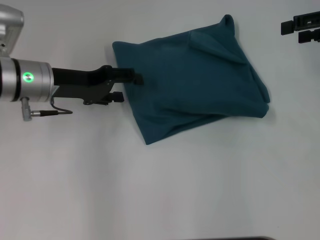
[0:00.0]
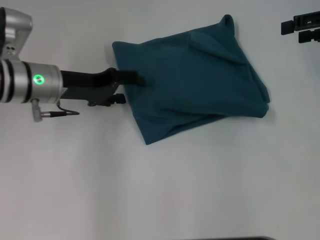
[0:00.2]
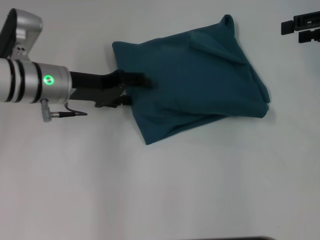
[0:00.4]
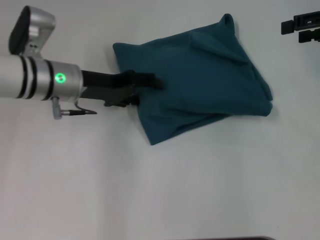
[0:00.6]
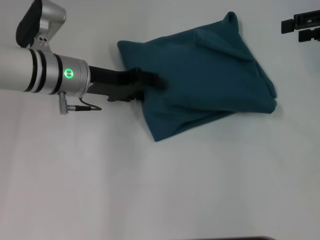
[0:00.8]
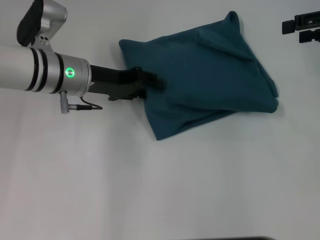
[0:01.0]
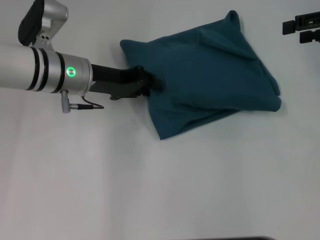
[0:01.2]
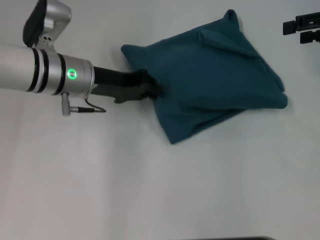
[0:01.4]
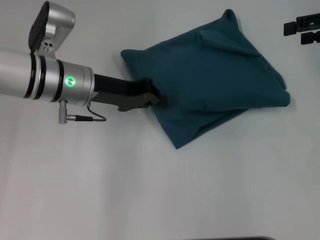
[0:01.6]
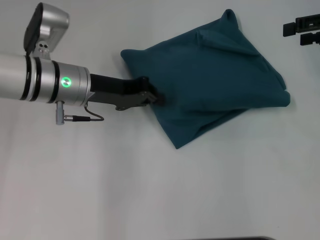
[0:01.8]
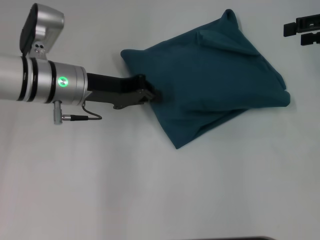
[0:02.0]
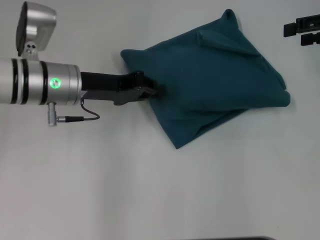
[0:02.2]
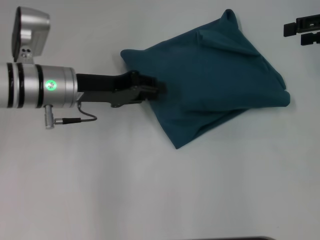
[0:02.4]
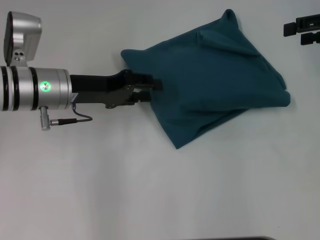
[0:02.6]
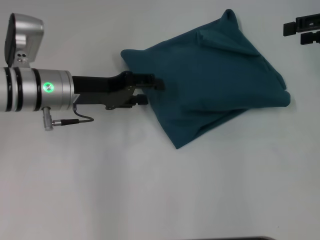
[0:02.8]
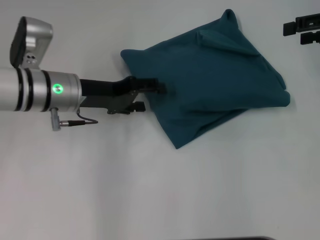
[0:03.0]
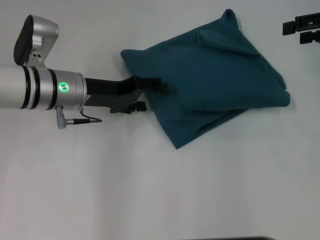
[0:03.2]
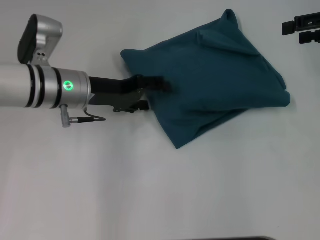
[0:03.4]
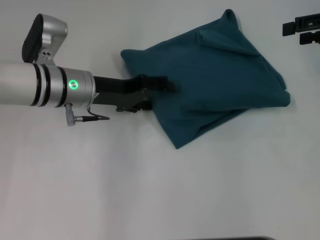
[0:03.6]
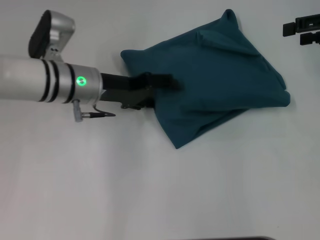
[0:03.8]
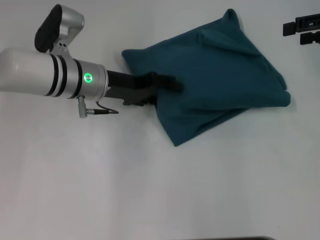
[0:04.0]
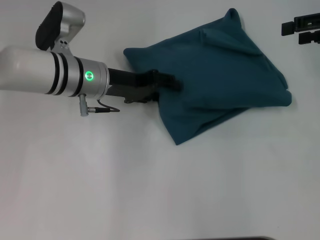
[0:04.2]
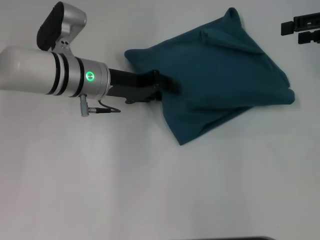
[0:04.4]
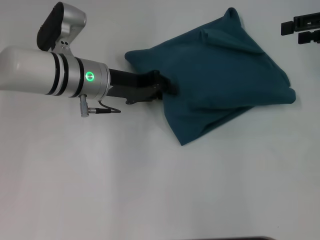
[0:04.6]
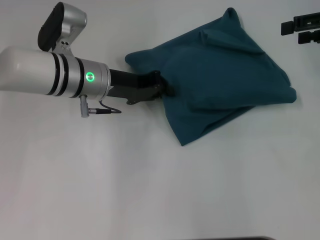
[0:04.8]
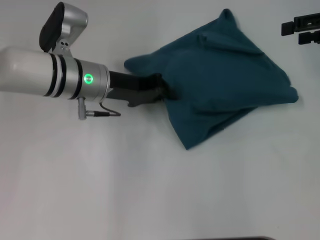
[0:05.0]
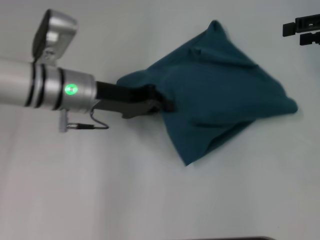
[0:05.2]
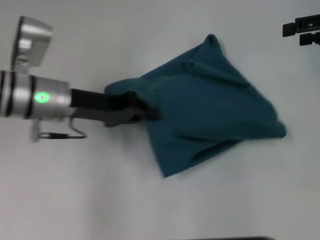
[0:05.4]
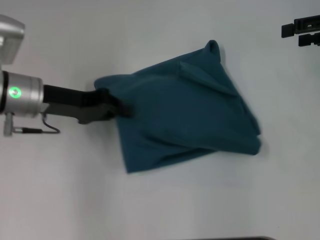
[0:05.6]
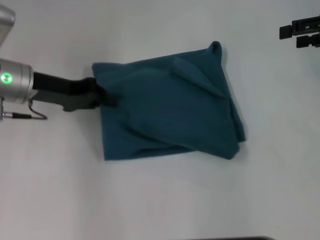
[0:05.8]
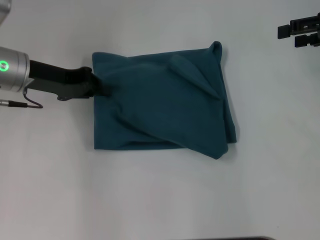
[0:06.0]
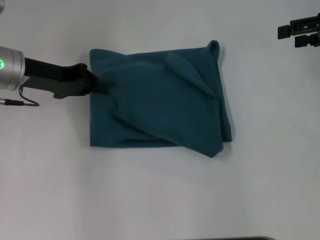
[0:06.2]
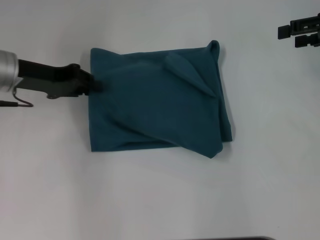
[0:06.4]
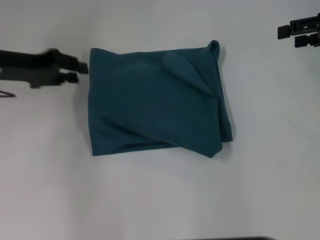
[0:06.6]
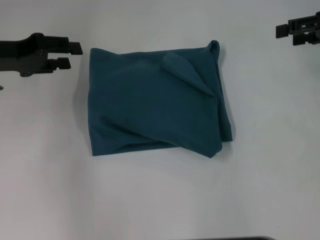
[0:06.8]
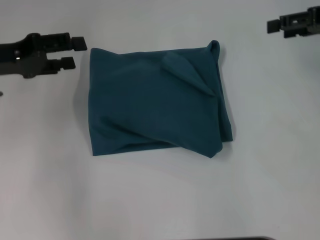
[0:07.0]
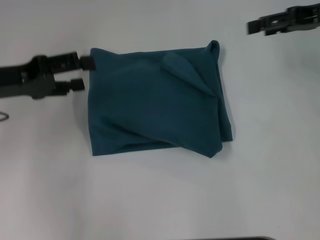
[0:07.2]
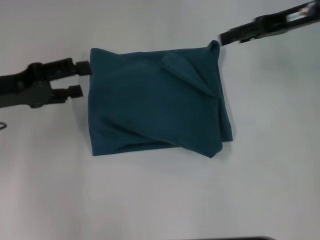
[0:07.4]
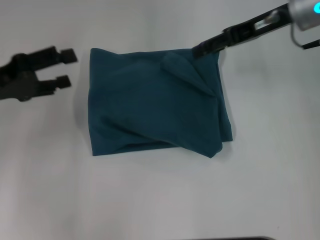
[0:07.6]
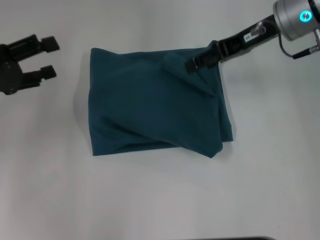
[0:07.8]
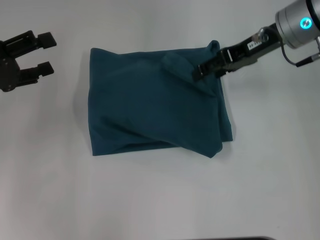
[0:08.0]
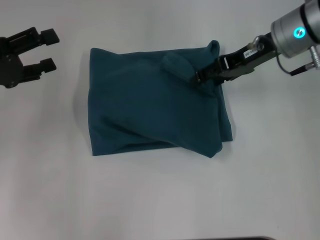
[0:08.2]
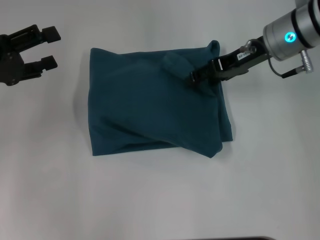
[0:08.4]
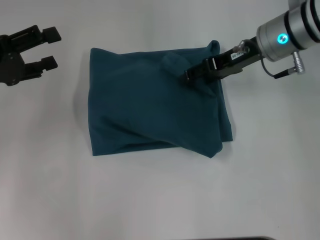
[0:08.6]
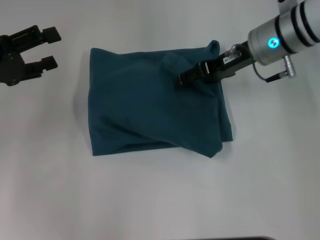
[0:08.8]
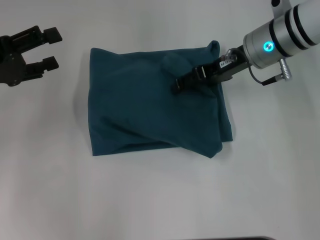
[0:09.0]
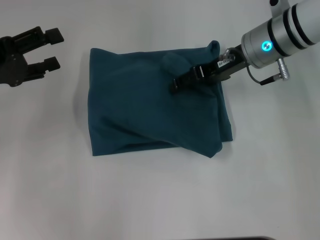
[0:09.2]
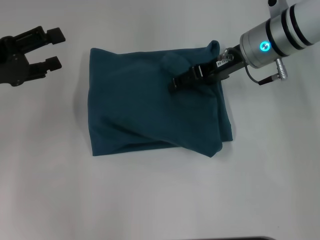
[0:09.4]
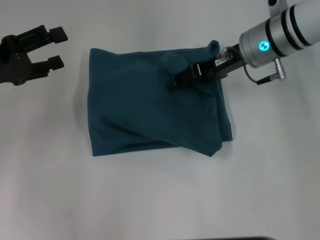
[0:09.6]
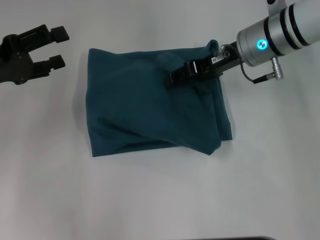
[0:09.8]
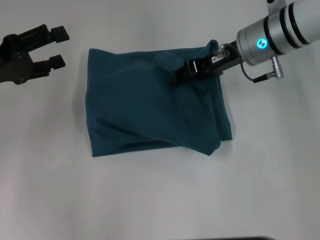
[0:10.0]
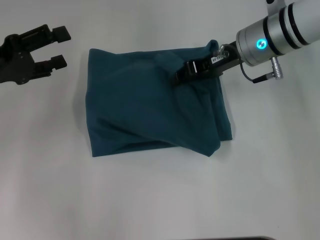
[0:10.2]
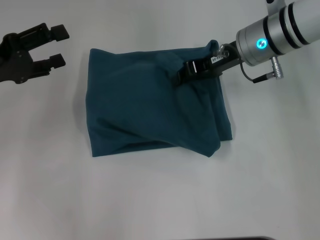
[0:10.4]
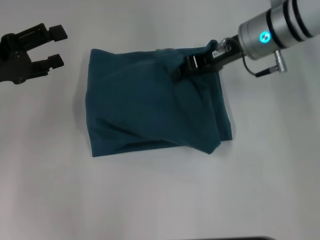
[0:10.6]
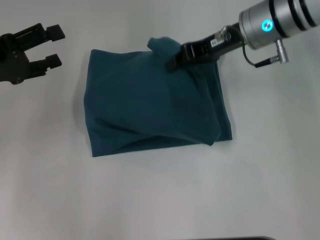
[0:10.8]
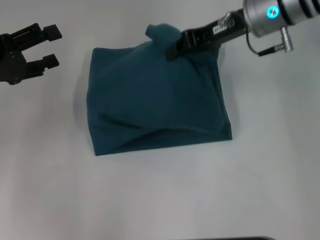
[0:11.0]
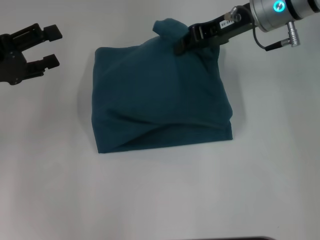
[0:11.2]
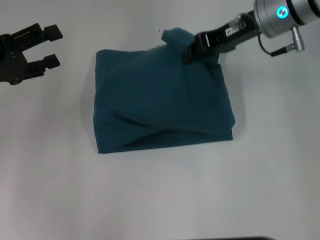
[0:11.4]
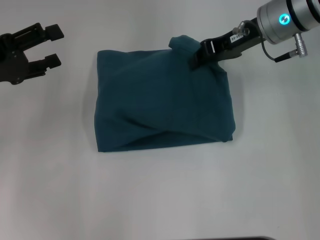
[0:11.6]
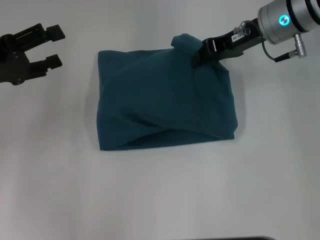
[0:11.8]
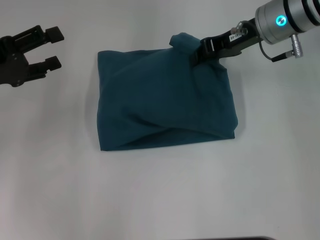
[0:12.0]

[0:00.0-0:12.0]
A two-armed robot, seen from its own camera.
0:00.0 to 0:01.6: The left gripper heads to the right, covering roughly 5 cm, and closes its fingers.
0:01.6 to 0:03.0: The left gripper opens its fingers.
0:03.0 to 0:04.4: The grippers stay close to where they were, moving slightly.
0:04.4 to 0:06.0: The left gripper heads to the left, covering about 10 cm, and closes.
0:06.0 to 0:07.6: The left gripper shifts roughly 10 cm backward and to the left, and opens, while the right gripper heads to the left, covering some 15 cm.
0:07.6 to 0:09.0: The right gripper is displaced downward by some 5 cm.
0:09.0 to 0:10.4: The right gripper closes up.
0:10.4 to 0:12.0: The grippers make only small movements.

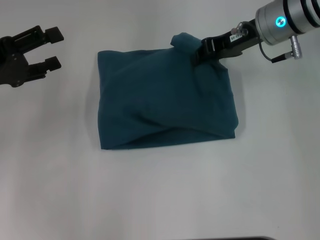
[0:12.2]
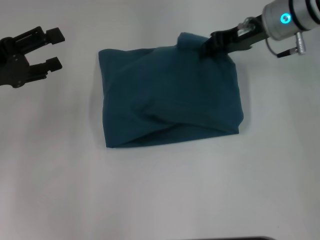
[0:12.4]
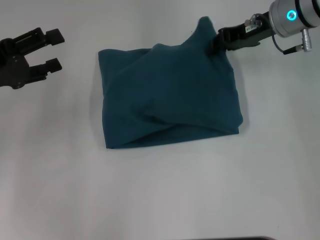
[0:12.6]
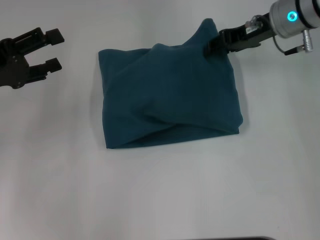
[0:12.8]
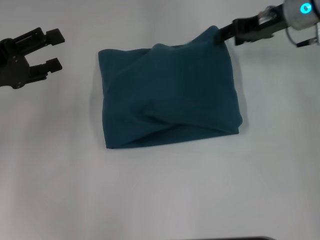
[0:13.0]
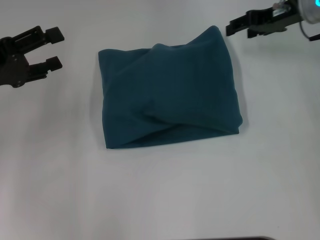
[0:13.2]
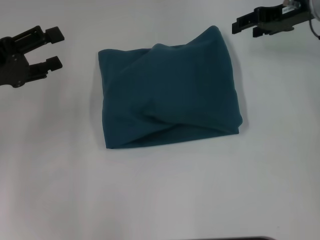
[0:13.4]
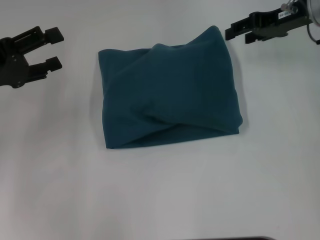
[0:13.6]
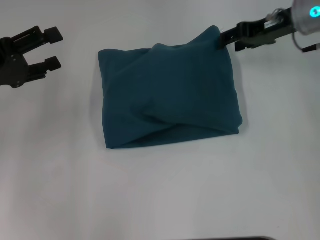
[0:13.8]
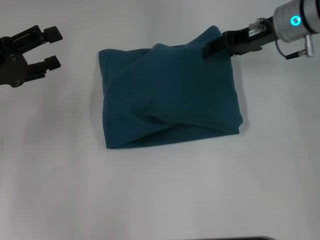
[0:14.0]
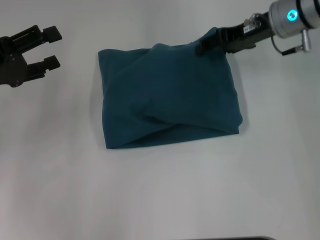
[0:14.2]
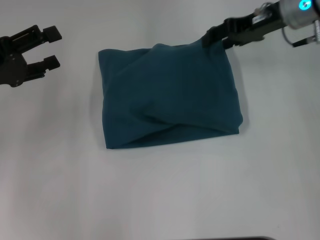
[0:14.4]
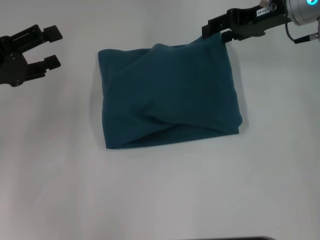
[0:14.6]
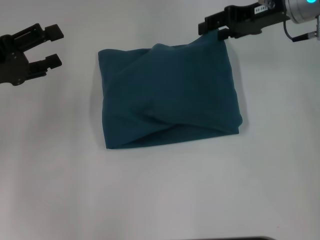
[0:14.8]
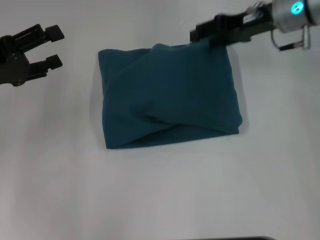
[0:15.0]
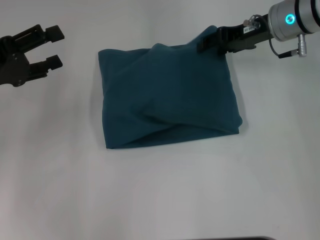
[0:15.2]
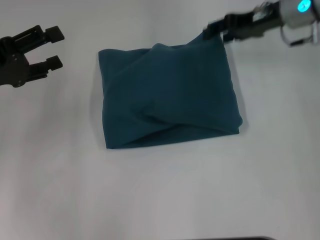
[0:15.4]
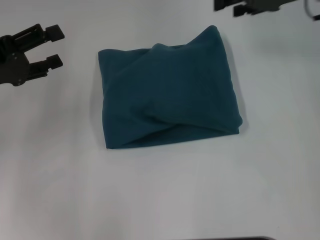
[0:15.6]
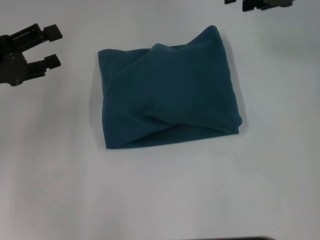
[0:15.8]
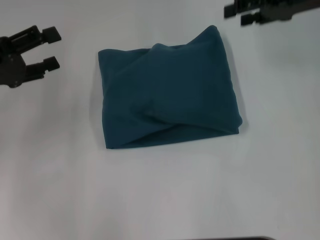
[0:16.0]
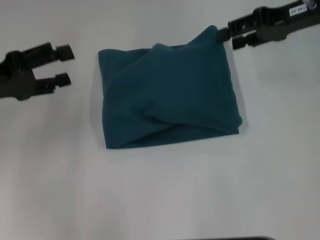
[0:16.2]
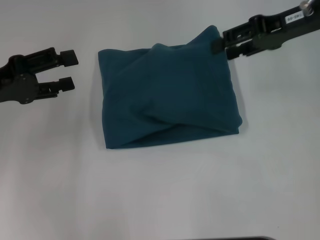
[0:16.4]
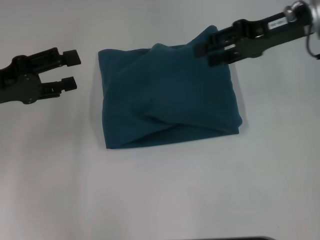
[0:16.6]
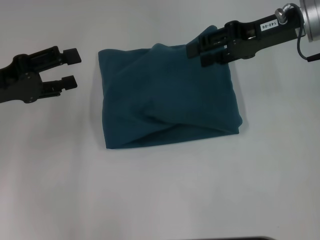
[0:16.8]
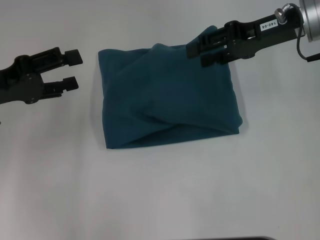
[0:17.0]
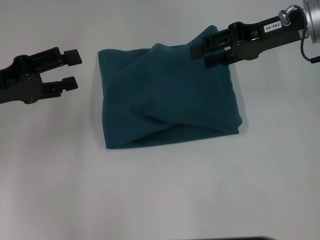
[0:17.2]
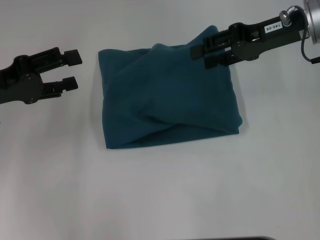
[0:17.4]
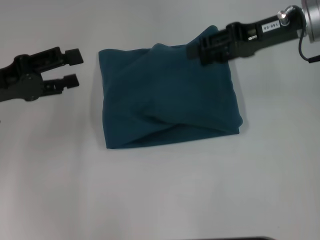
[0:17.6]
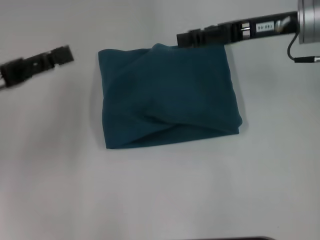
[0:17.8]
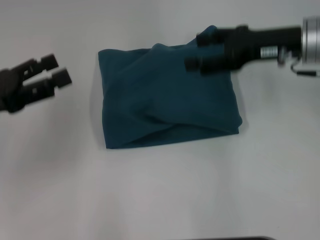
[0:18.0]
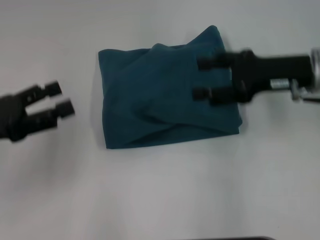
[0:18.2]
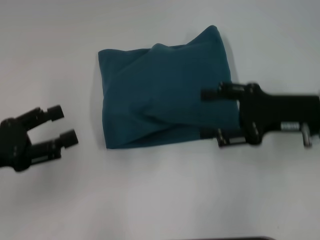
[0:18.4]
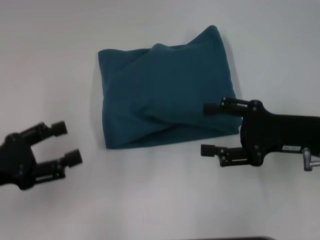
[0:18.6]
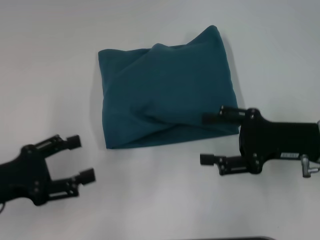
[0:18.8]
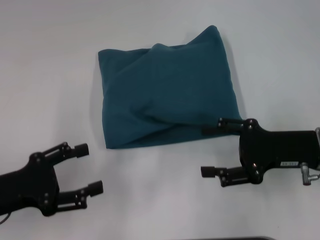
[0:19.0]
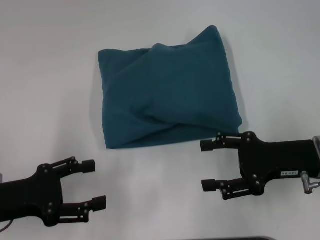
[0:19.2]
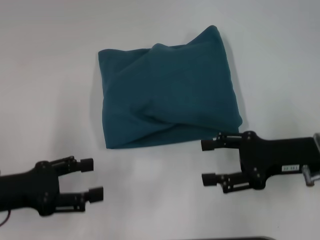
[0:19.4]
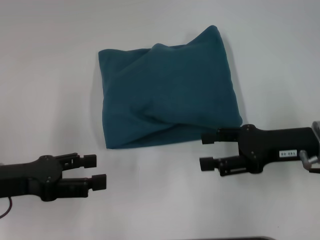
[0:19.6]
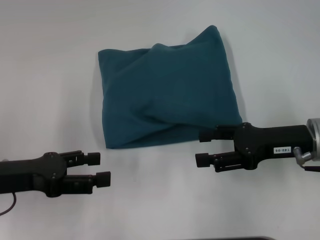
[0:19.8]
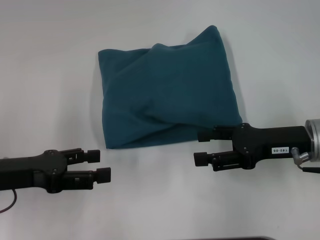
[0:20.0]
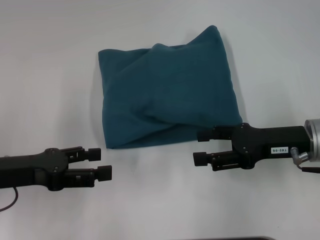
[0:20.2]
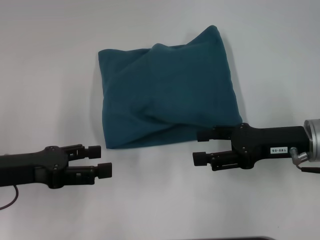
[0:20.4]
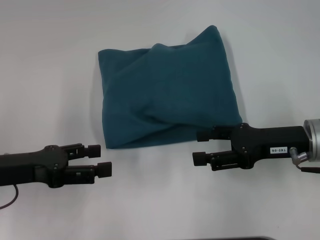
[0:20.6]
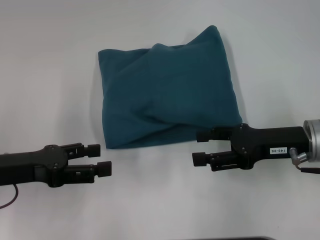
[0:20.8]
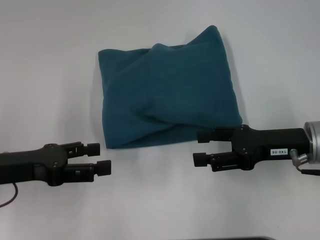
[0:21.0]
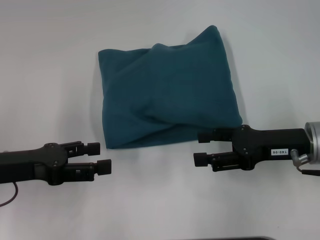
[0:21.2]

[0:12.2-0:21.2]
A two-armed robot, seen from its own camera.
0:12.2 to 0:13.8: The right gripper goes about 5 cm to the right, and opens up.
0:13.8 to 0:15.2: The grippers move only a little.
0:15.2 to 0:16.6: The right gripper changes place by about 5 cm.
0:16.6 to 0:18.2: The left gripper moves backward, roughly 5 cm, while the right gripper heads backward and downward, covering about 10 cm.
0:18.2 to 0:19.8: The right gripper travels backward and downward by approximately 10 cm.
0:19.8 to 0:21.2: Both grippers stay about where they are.

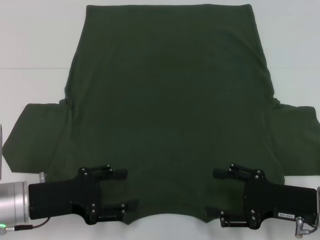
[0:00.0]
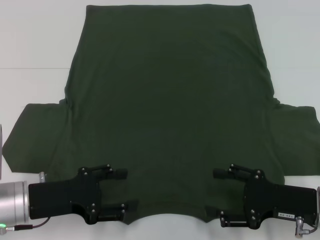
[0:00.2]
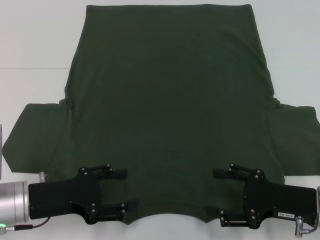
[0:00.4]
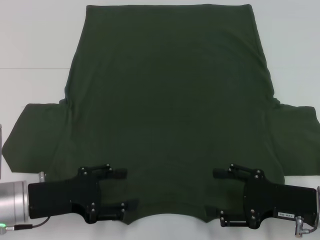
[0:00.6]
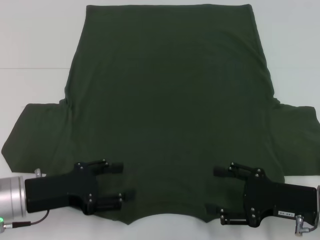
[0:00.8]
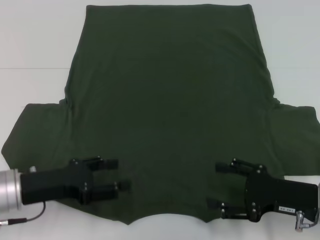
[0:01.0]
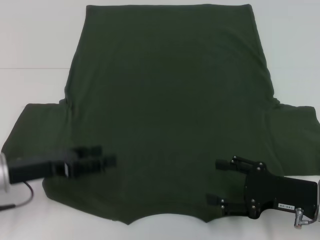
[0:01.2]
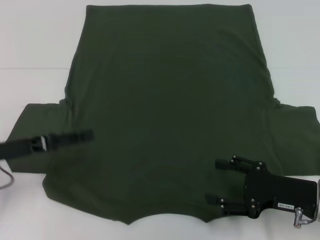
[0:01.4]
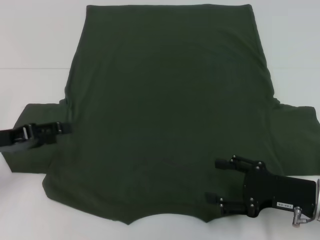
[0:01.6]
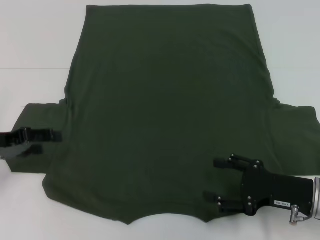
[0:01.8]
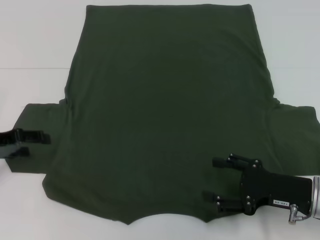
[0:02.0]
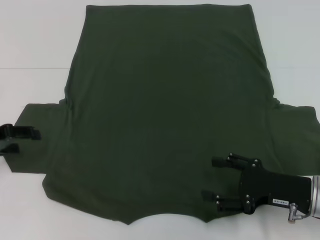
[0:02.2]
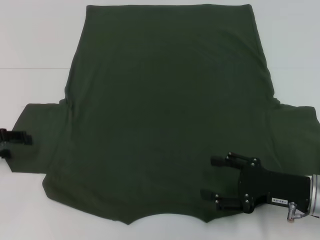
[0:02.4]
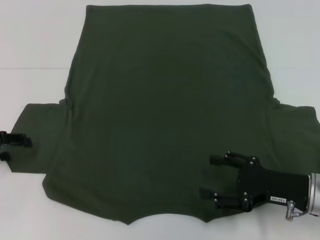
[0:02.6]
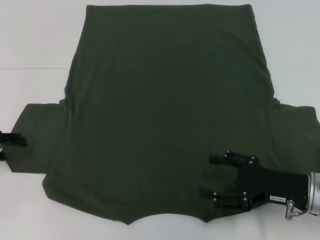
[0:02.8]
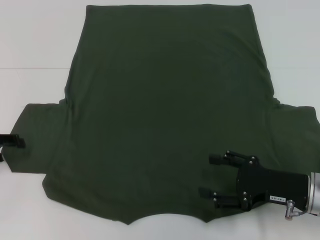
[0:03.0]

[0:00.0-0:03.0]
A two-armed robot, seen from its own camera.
0:00.0 to 0:01.6: The left gripper goes about 10 cm to the left and forward.
